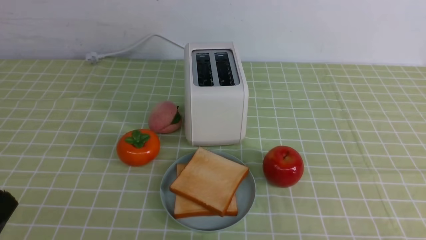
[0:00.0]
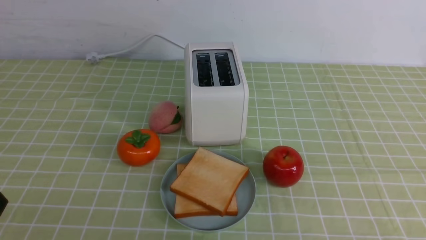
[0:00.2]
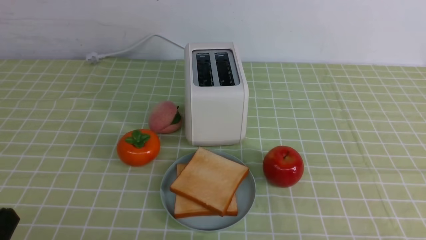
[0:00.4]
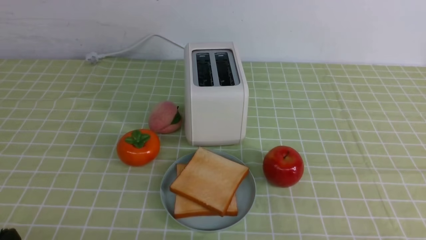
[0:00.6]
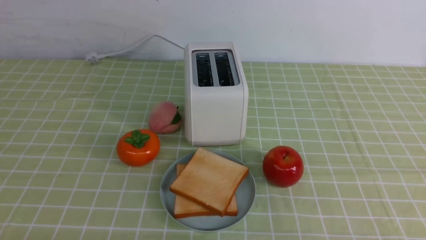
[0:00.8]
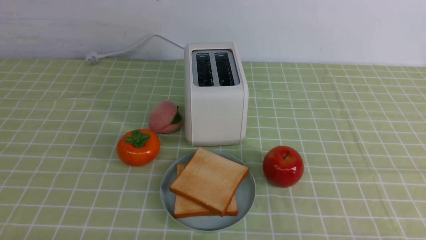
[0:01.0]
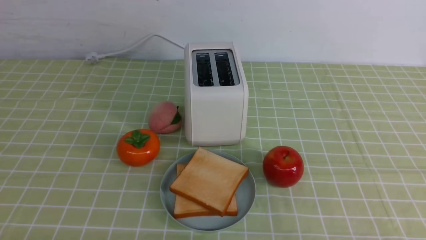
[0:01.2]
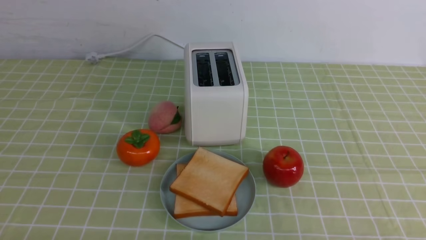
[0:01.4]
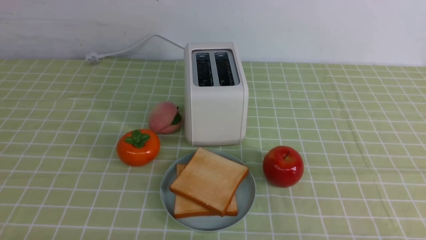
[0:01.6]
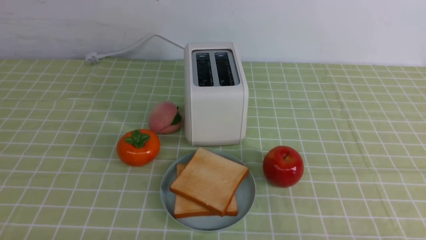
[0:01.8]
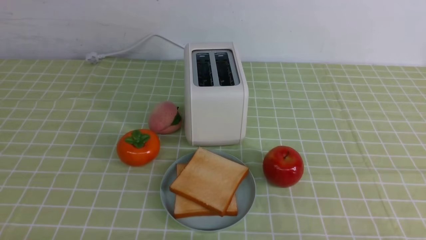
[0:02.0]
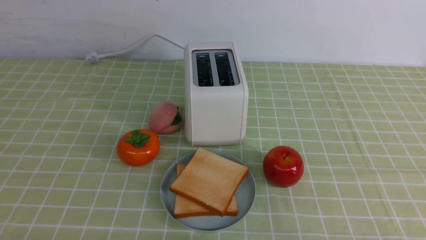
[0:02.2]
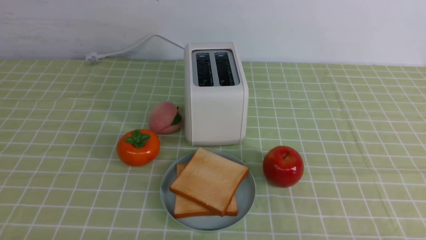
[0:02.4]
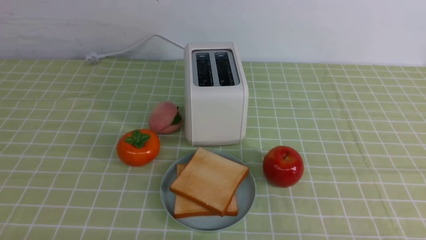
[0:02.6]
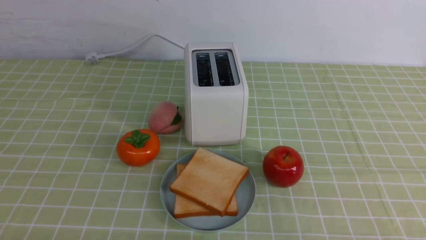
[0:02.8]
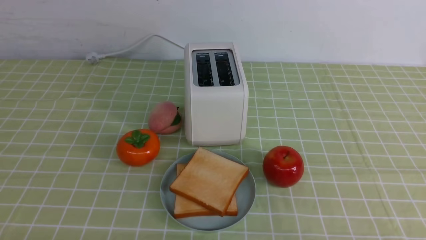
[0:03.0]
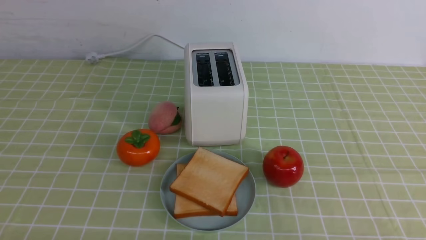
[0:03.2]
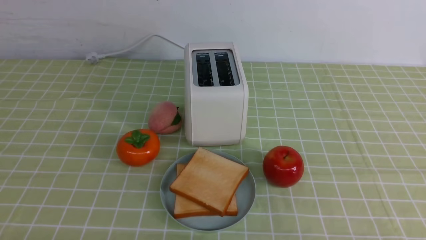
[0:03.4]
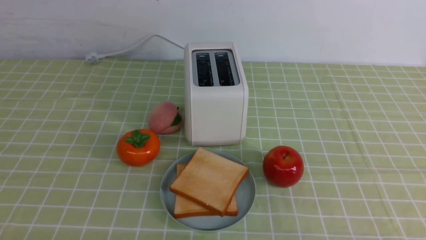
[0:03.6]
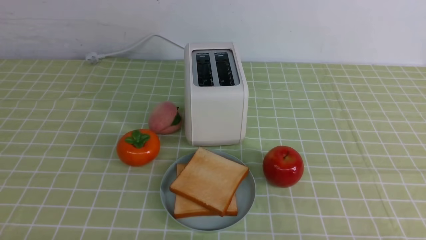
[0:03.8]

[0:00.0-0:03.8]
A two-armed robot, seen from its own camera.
Task of the whole recording: take toasted bread from bread machine on green coffee tablecloth place on plate.
0:01.2 to 0:03.8: The two grippers keep their place.
